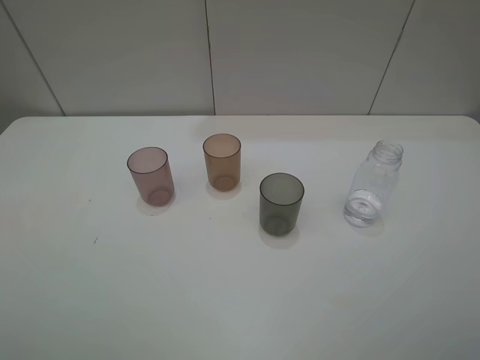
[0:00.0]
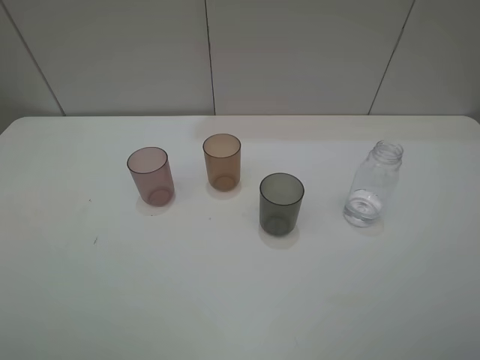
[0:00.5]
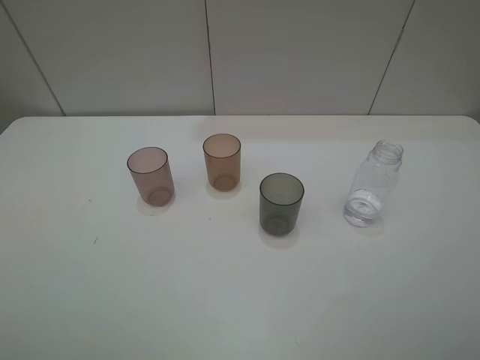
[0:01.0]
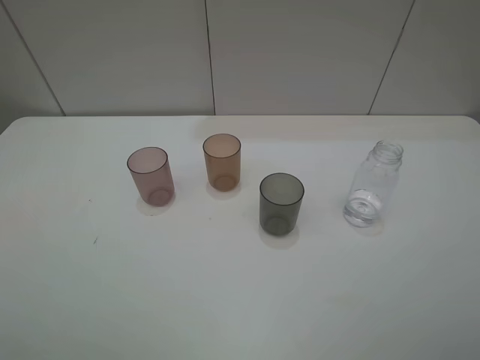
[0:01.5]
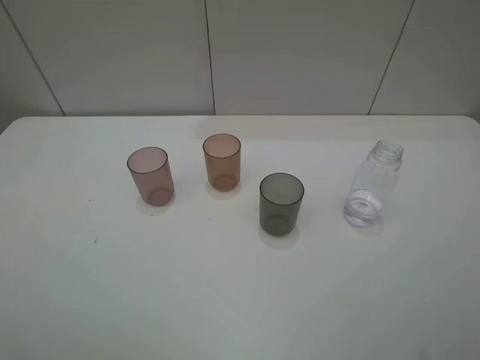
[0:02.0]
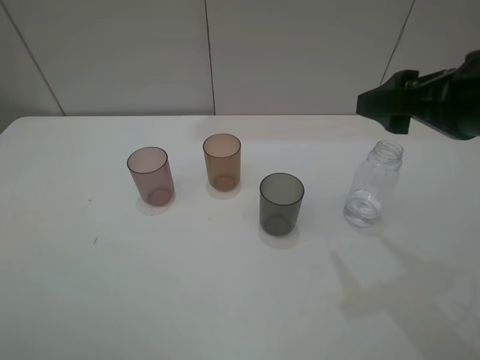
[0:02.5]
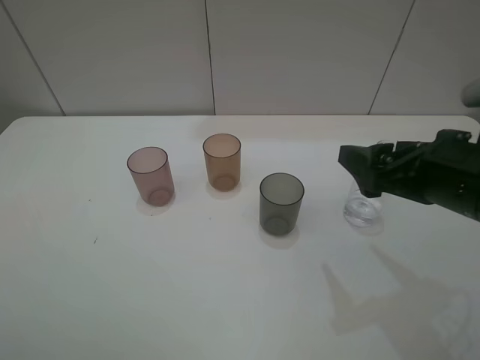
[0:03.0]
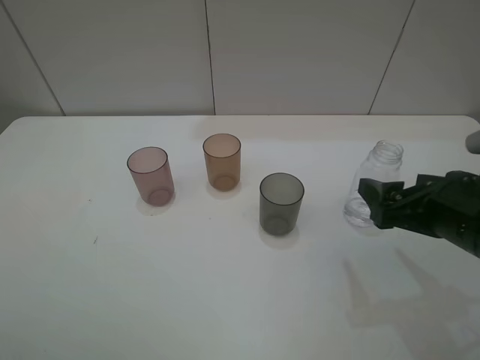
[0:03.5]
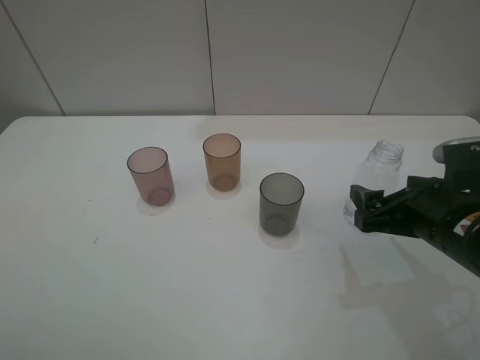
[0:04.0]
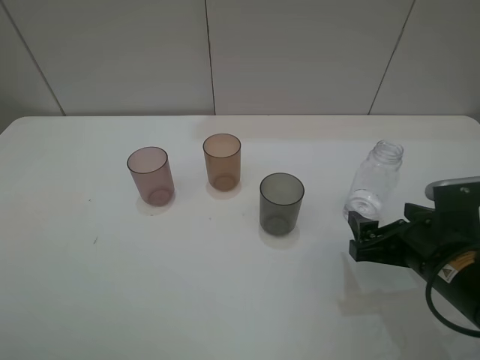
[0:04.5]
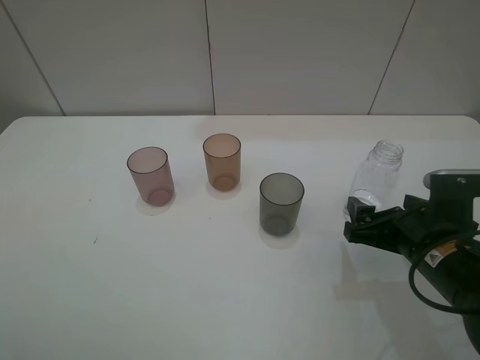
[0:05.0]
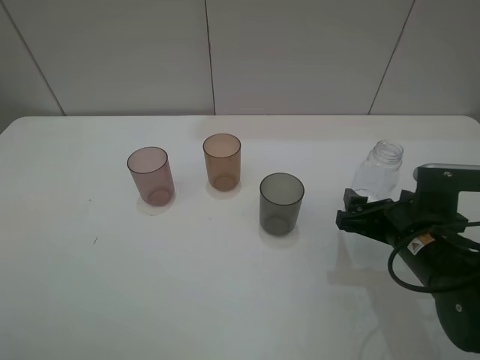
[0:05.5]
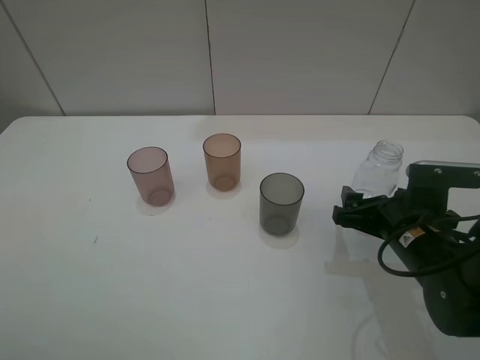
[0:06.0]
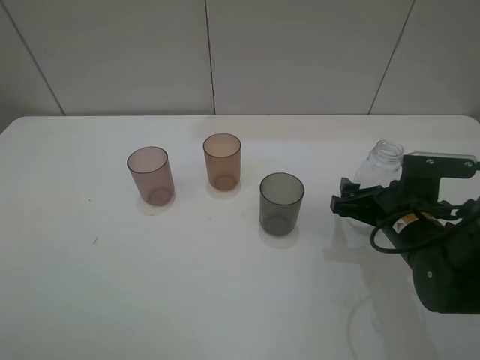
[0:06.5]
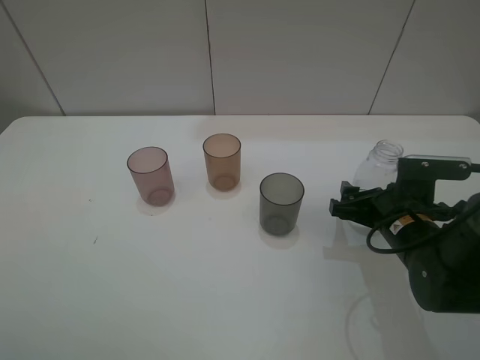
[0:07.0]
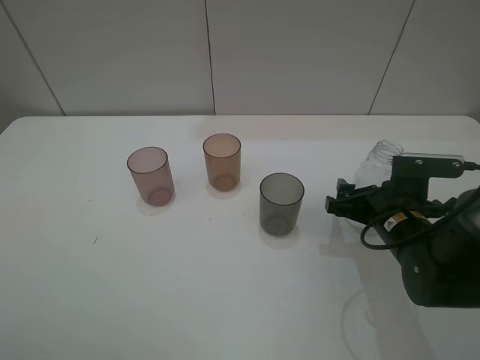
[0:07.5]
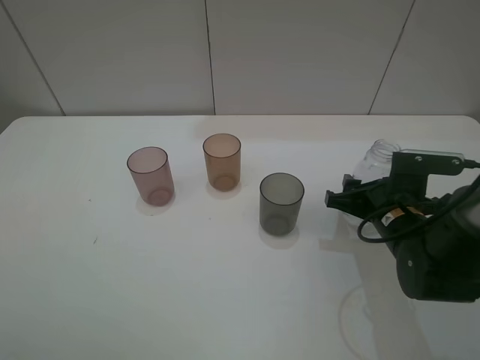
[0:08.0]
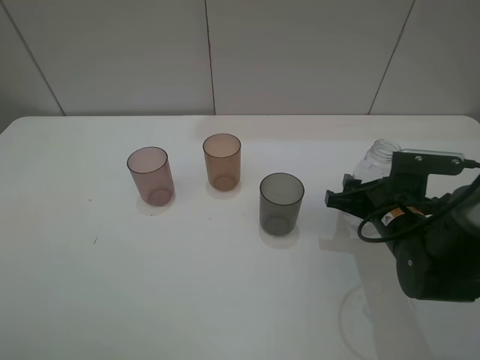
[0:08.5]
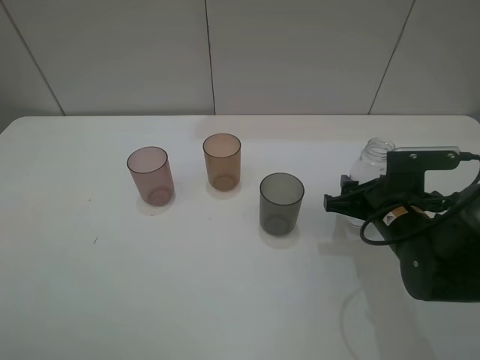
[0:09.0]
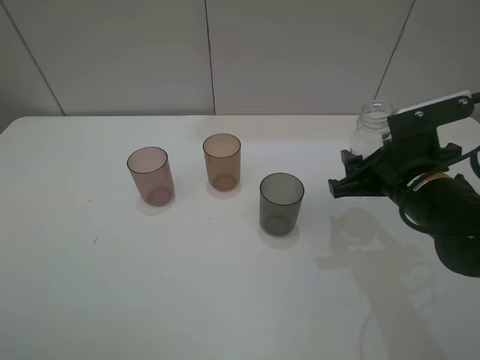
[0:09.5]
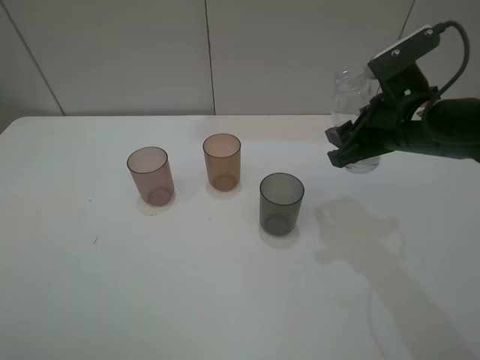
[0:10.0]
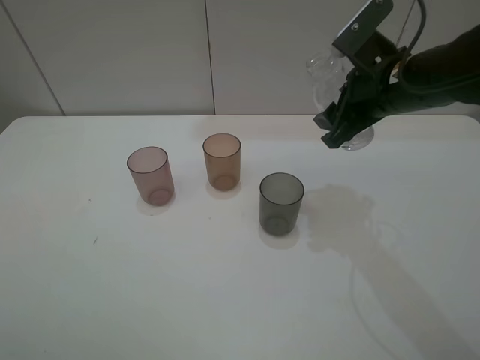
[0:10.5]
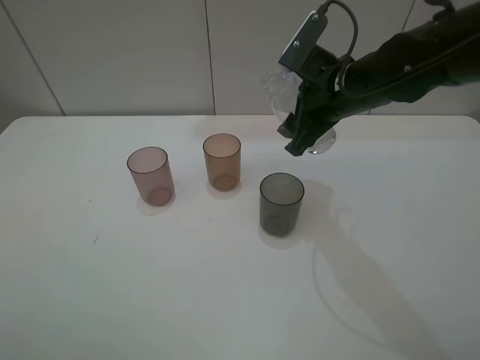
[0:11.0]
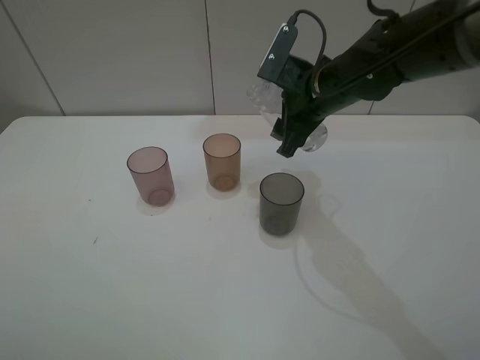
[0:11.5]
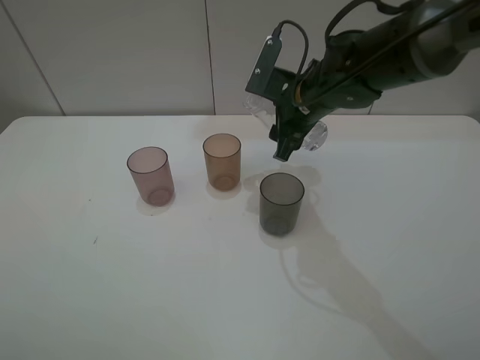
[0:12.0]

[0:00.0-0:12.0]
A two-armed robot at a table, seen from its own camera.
Task of the whole recording: pick up the bottle filled with water and pour water into the middle cup of the three cups.
Step, 0:00.0 to 0:08.5: Grasp the transparent bottle with the right gripper.
0:02.0 to 0:04.0: The right gripper is displaced downward and forward by approximately 20 cm.
0:04.0 to 0:06.0: The right gripper travels downward by roughly 5 cm.
0:06.0 to 0:08.0: The right gripper closes its fingers.
0:08.0 to 0:10.0: The right gripper shifts approximately 15 cm upward.
0:10.0 to 0:12.0: The right gripper shifts some 15 cm to the left and forward.

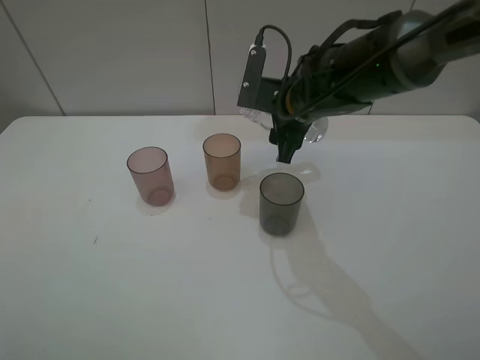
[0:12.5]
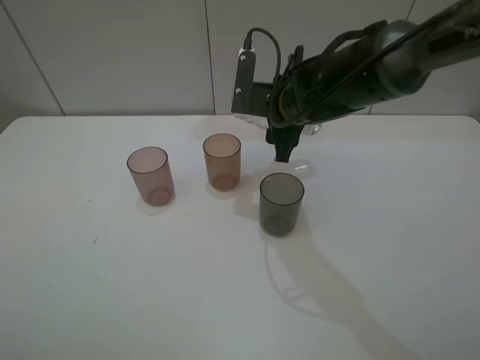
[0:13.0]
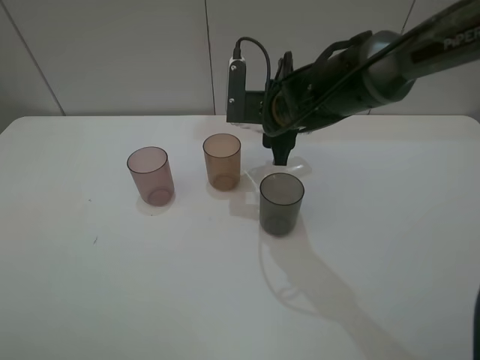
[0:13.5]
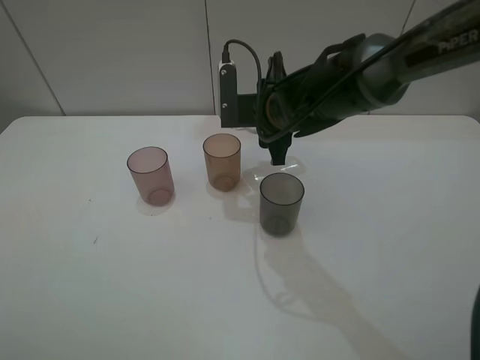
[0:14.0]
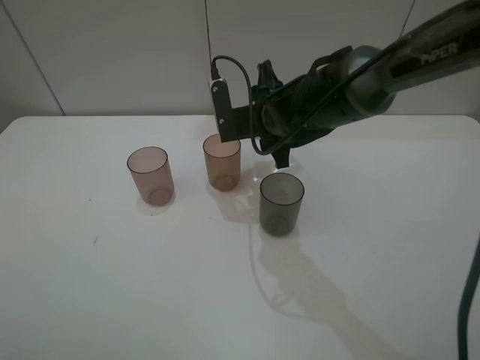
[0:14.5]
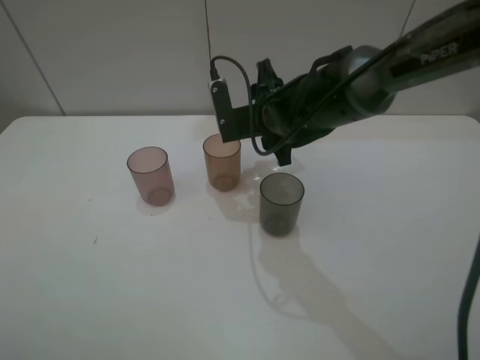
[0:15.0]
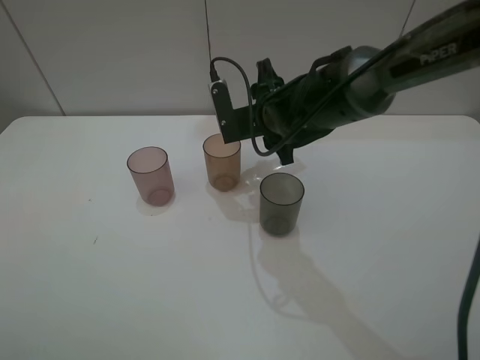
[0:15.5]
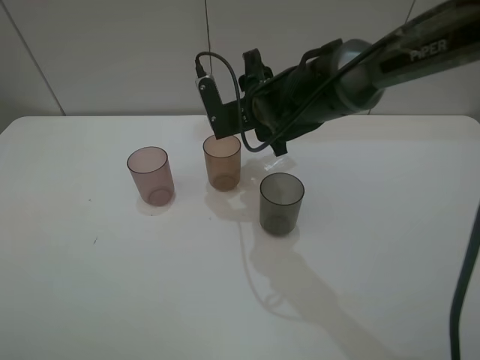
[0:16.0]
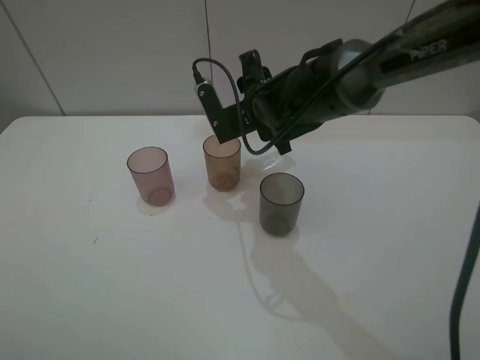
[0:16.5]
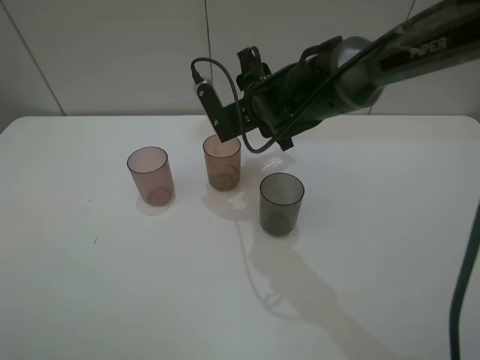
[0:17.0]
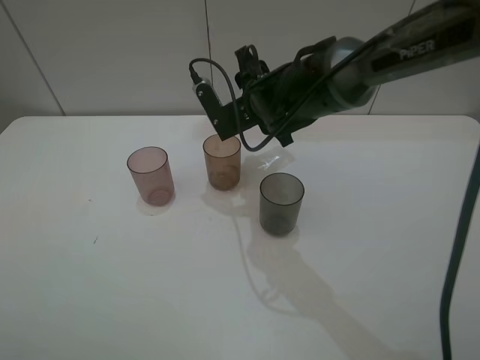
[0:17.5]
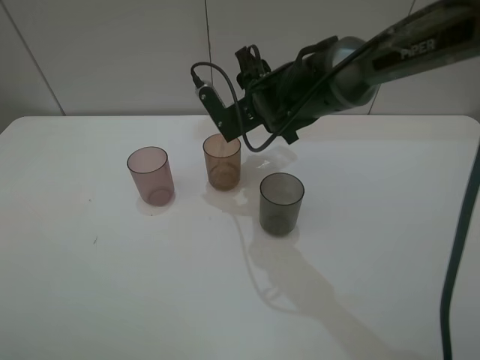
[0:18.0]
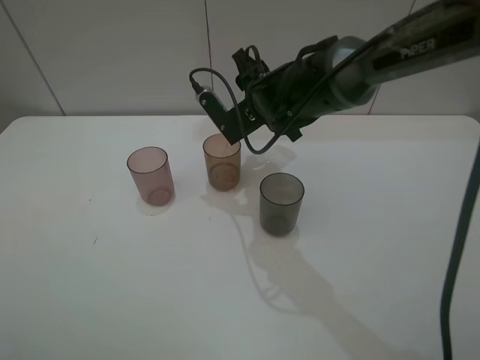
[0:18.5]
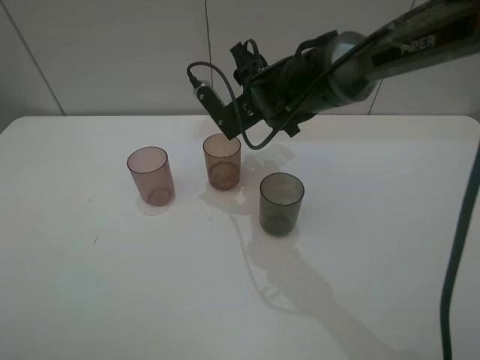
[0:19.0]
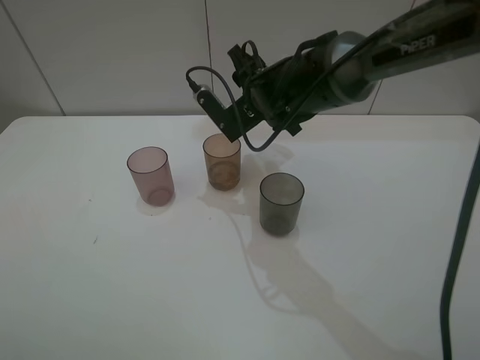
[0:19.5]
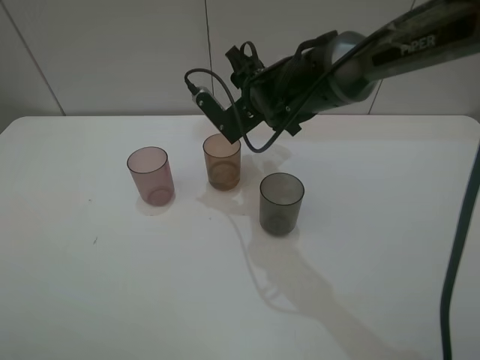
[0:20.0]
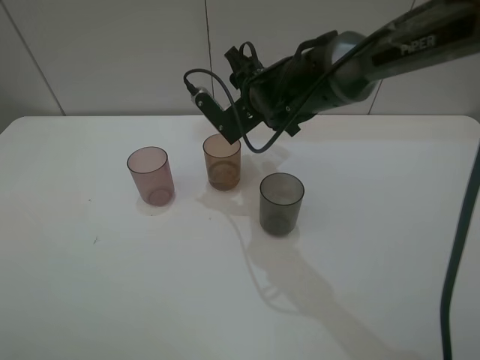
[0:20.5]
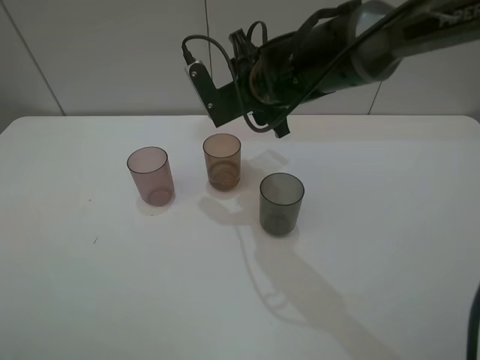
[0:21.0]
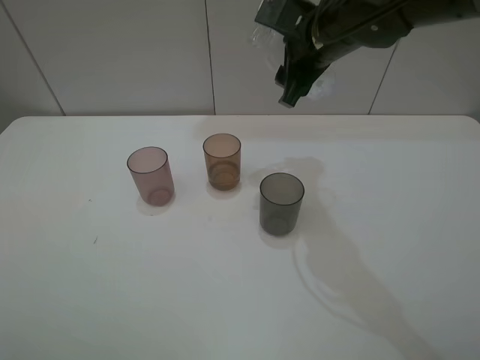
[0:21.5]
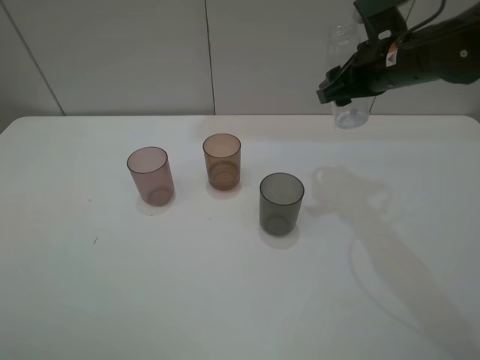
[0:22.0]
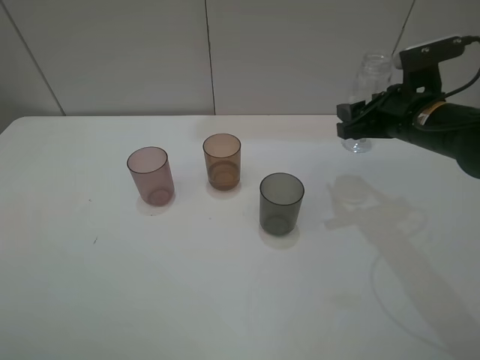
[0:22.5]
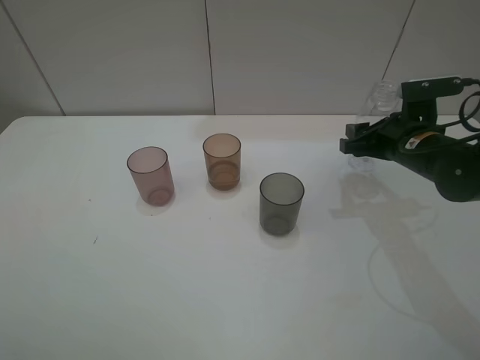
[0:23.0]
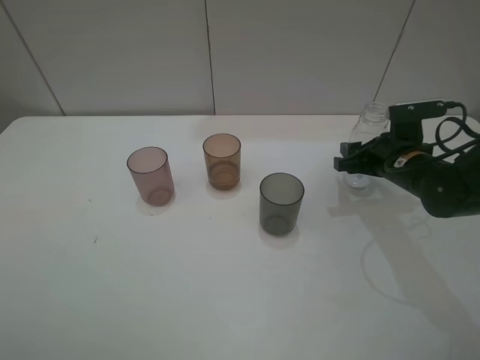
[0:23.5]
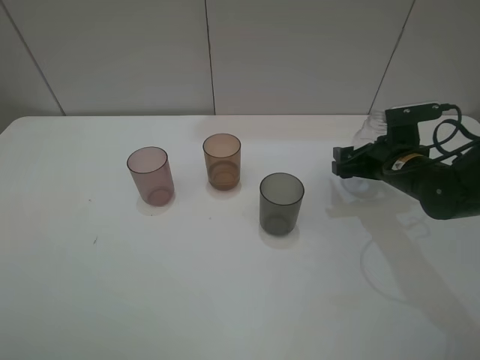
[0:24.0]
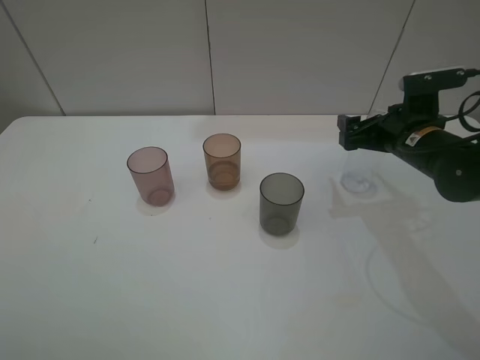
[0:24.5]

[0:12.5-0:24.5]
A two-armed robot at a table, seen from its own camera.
Task of the whole recording: pick up the bottle filled with water and pour water into the middle cup of the three cups.
Step, 0:12.5 to 0:19.5: Pour water from transparent bottle tobrown cup with the right gripper.
0:14.5 to 0:16.5: There are only small adjustments of the grippers.
0:16.5 to 0:18.5: There are only small adjustments of the grippers.
0:18.5 to 0:20.5: Neither gripper changes place.
0:20.5 to 0:22.5: The right gripper heads to the right, covering about 20 cm.
0:22.5 to 0:24.5: The right gripper opens.

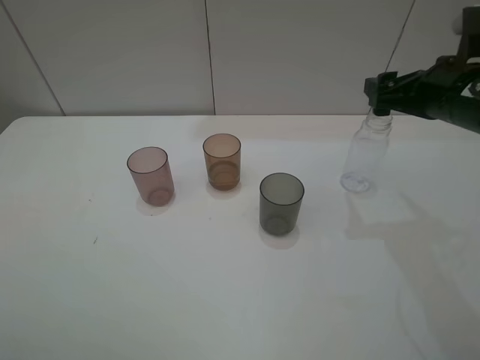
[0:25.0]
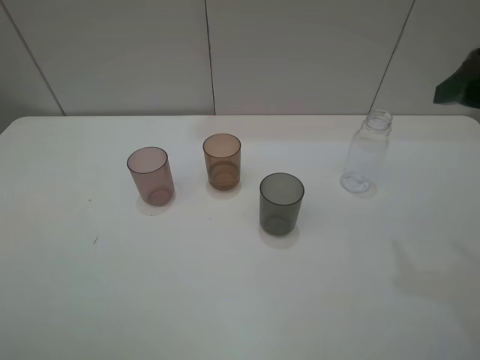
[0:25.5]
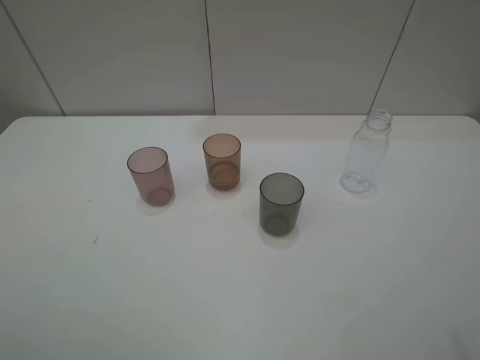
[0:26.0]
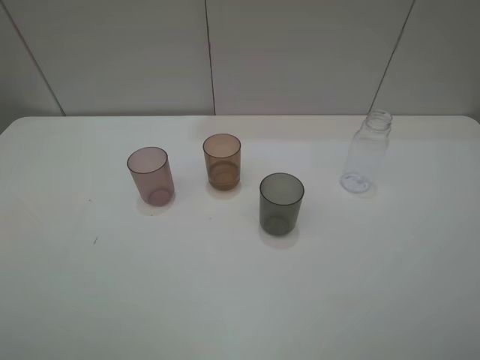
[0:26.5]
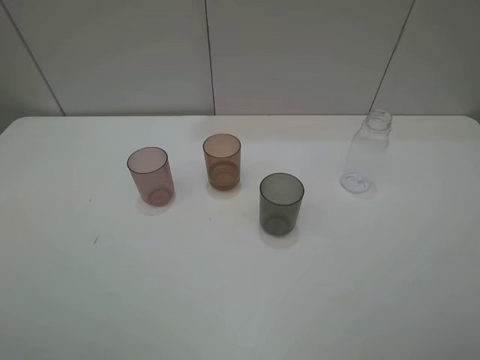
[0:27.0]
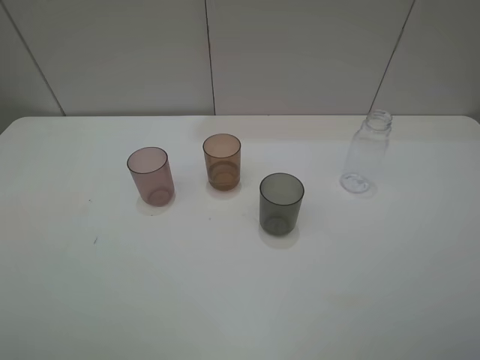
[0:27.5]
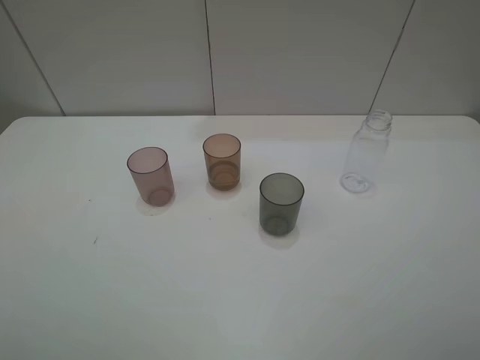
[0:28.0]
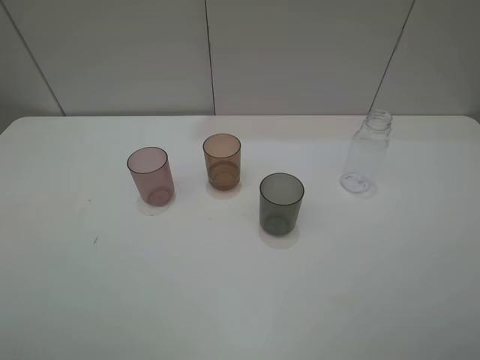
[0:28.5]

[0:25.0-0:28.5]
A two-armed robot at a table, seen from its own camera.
Task of the whole recording: pick up the bottle filled with water and pour water into the middle cup of the three cups.
0:25.0 to 0:27.0: The right gripper shifts approximately 30 cm backward.
0:27.0 to 0:28.5: Both grippers stay put.
